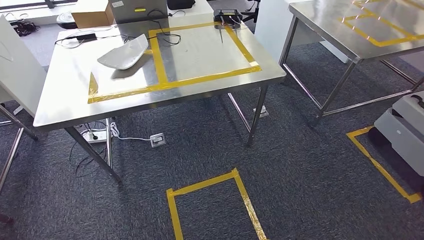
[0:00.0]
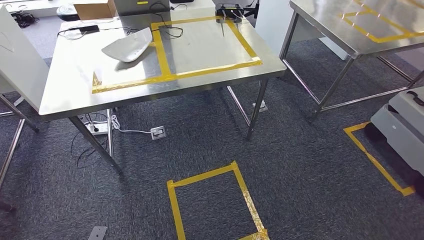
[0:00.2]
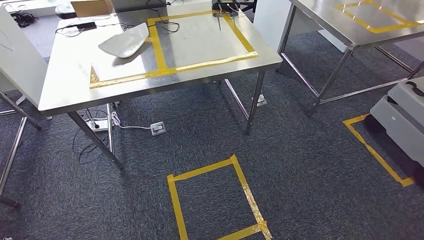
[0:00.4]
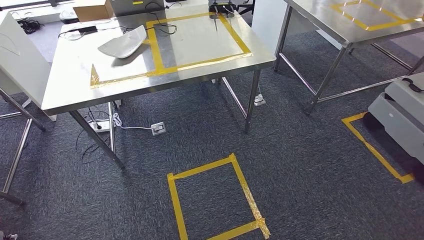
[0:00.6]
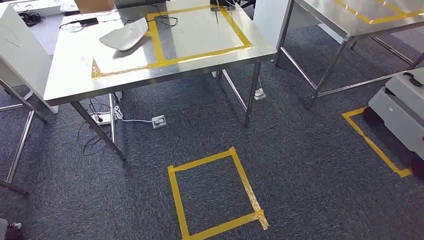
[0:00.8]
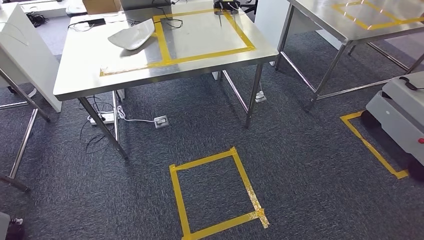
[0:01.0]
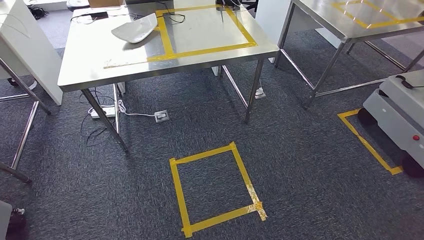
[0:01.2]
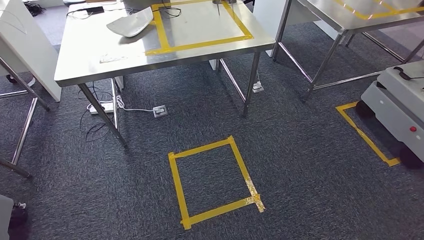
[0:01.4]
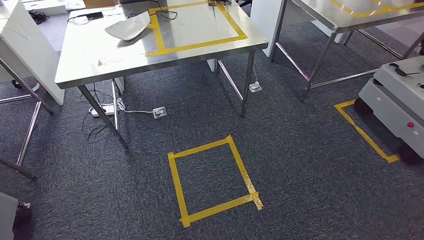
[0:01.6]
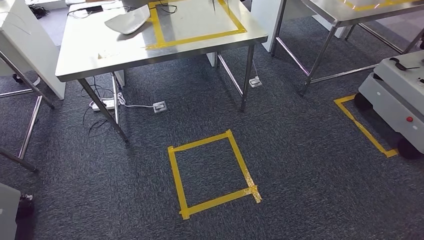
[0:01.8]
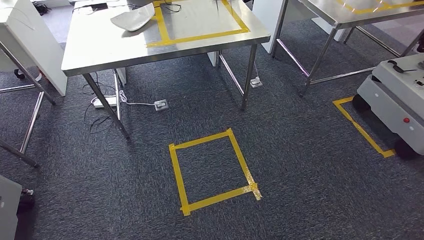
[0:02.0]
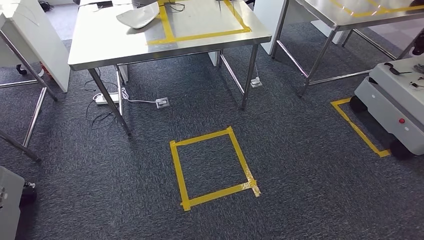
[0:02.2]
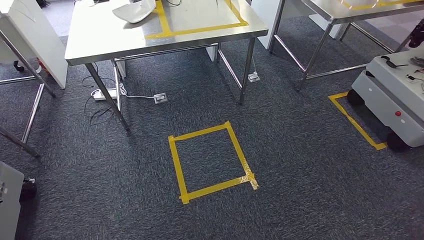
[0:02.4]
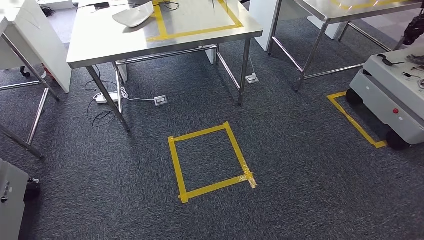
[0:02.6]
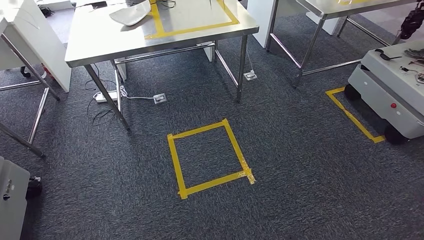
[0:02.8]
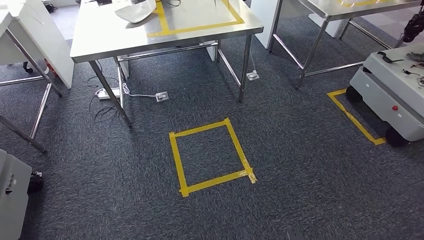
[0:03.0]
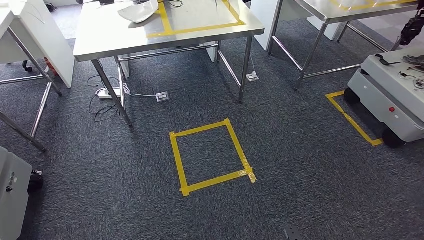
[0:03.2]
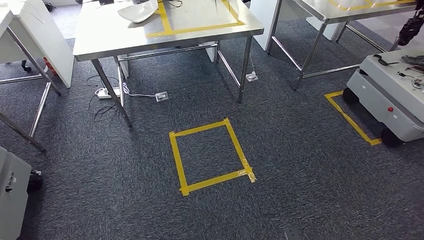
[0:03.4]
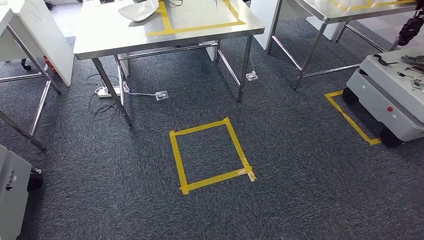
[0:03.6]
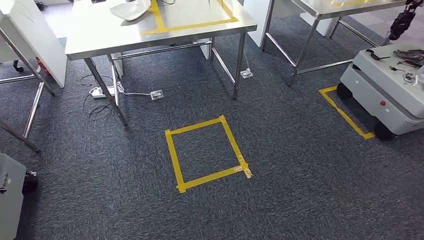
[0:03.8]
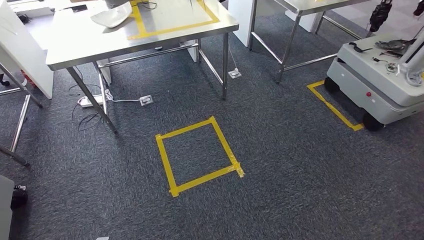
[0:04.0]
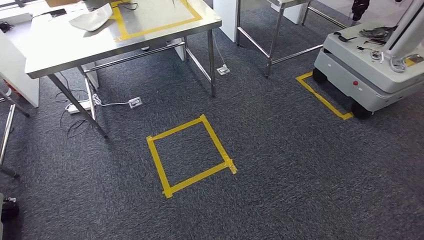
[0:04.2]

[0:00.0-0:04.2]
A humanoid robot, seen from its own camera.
Step, 0:00.0 to 0:04.2: Return to the initial position at the workbench.
